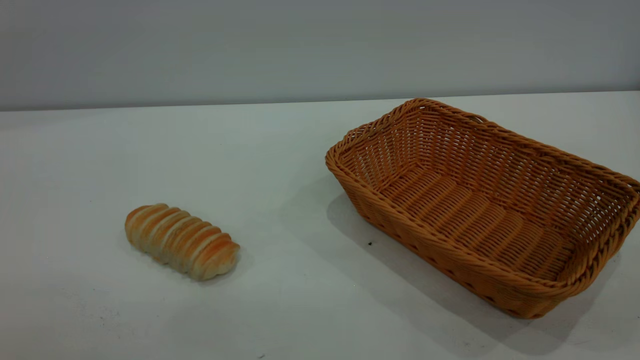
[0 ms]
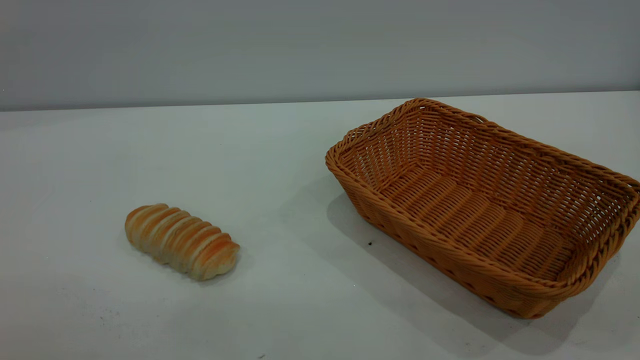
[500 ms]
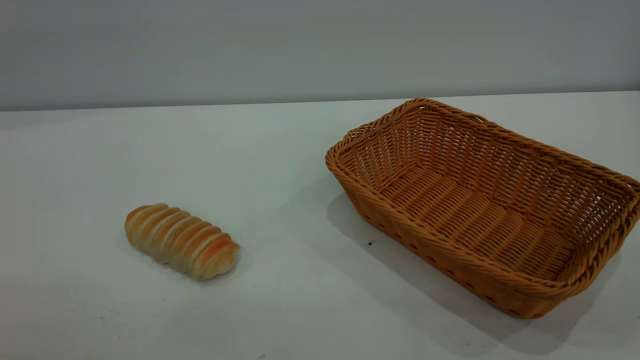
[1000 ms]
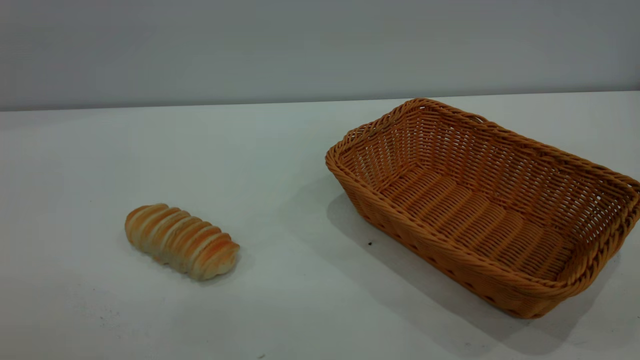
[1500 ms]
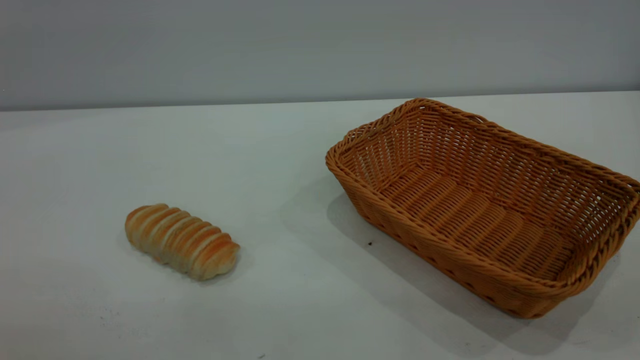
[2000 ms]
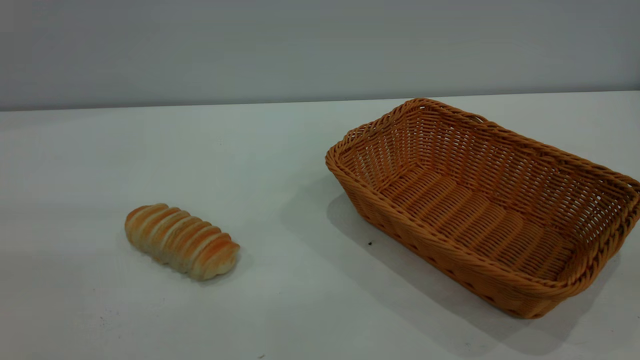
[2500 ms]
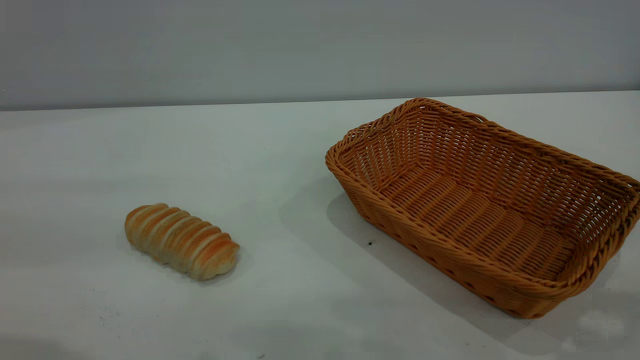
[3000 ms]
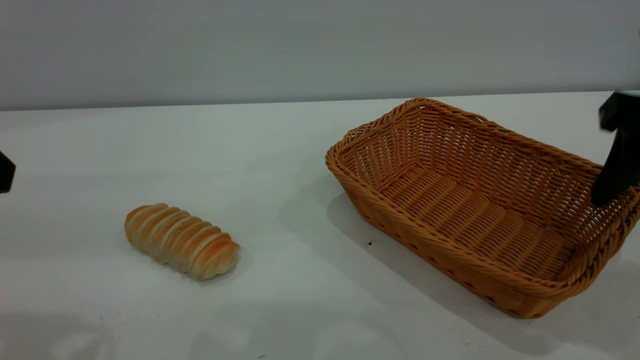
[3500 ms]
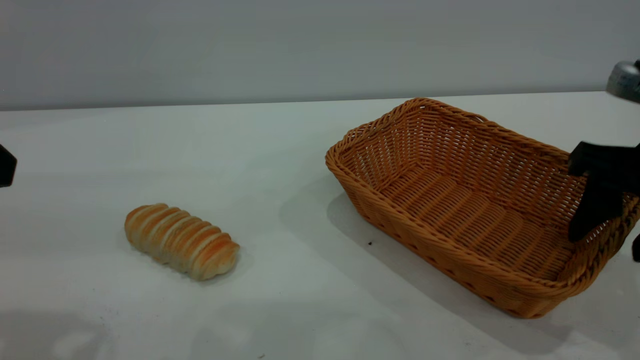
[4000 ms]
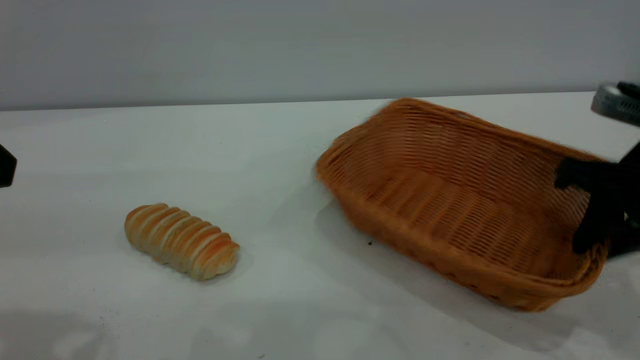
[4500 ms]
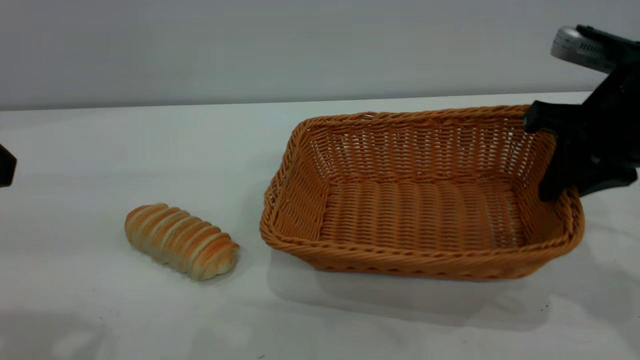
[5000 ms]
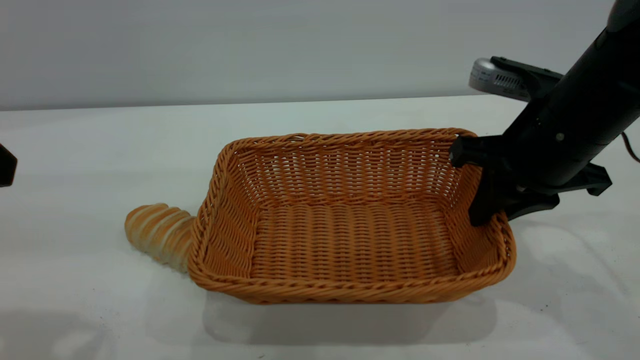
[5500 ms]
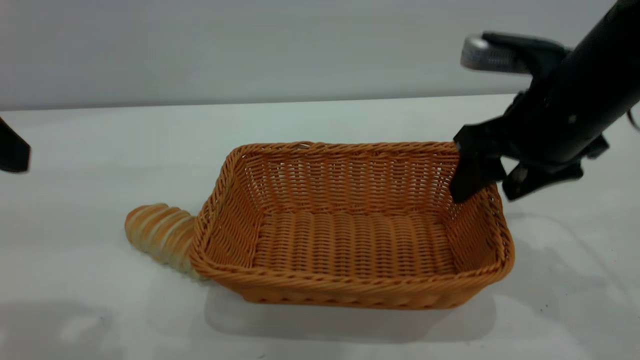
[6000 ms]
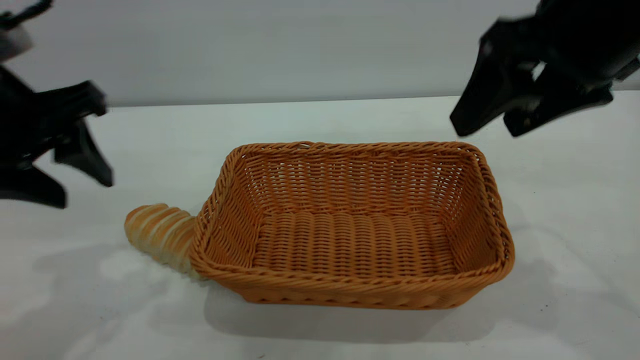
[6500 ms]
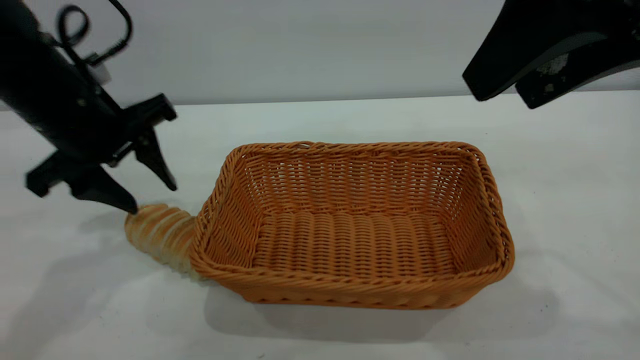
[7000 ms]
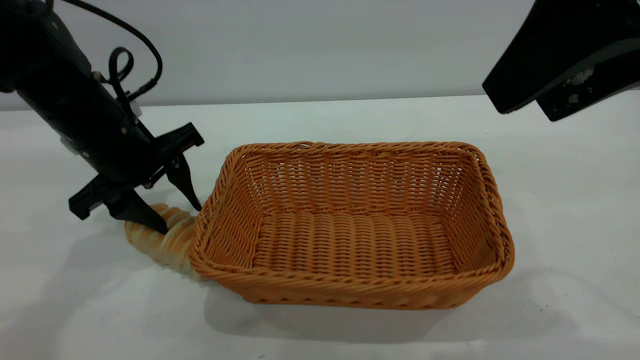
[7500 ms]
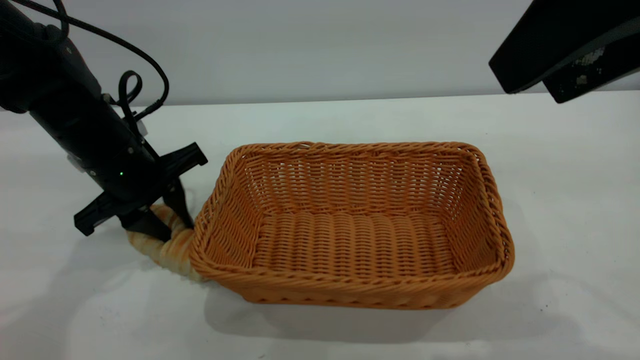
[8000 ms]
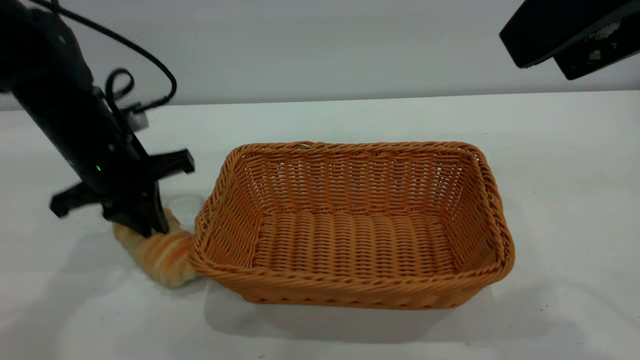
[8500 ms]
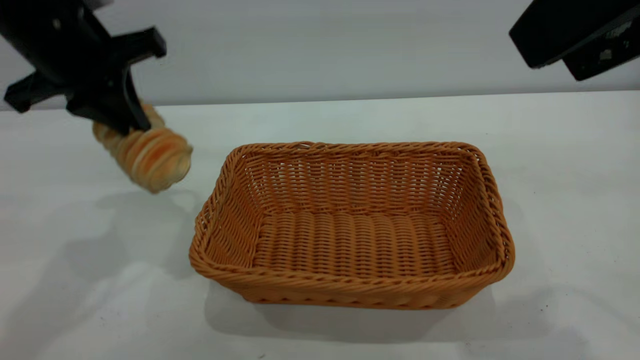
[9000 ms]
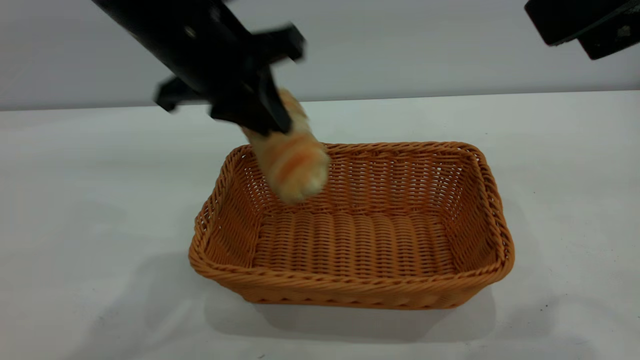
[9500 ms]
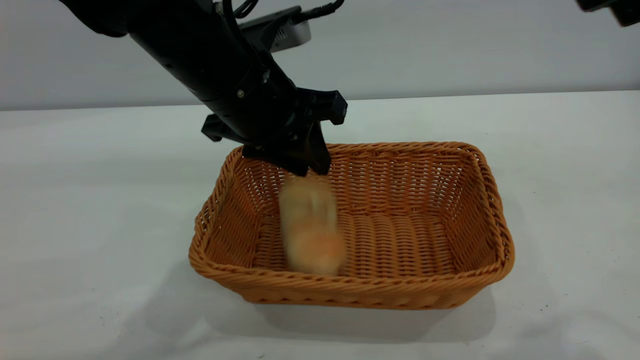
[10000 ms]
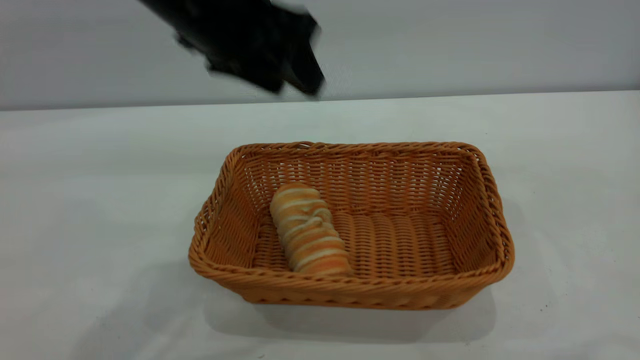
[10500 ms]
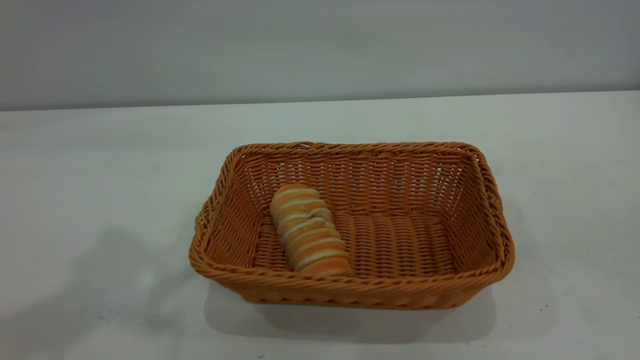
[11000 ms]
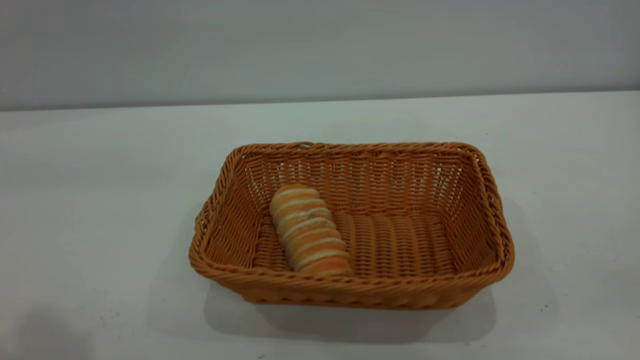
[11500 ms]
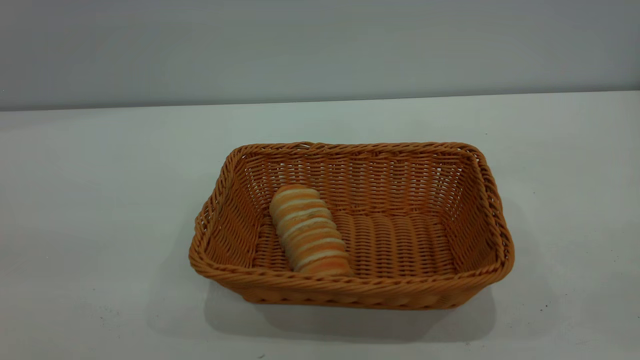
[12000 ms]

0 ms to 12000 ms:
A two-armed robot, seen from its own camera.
Task of the whole recording: One hand grasps the yellow basket and places it in the middle of the table, while the other hand picks up the long bread and puts it into the yellow basket.
Step, 0 ms to 6000 ms: Move the basket to the center of view.
Step, 9000 ms to 10000 ms: place the bread into the basket.
2000 ms to 4000 ms: The right gripper heads forward and downward, covering approximately 30 cm.
4000 ms to 6000 ms: The right gripper moves to the left and forward, approximately 10 cm, and closes, then reopens.
6000 ms to 8000 ms: The left gripper is displaced forward and downward by roughly 25 cm, and closes up. The right gripper heads upward and backward, covering about 20 cm.
8000 ms to 10000 ms: The right gripper moves approximately 5 cm; the left gripper travels to the right and upward by approximately 15 cm, and closes, then reopens.
10000 ms to 12000 ms: The left gripper travels backward, upward and to the left by some 40 cm, and opens its fingers; the right gripper travels backward and to the right by approximately 15 cm.

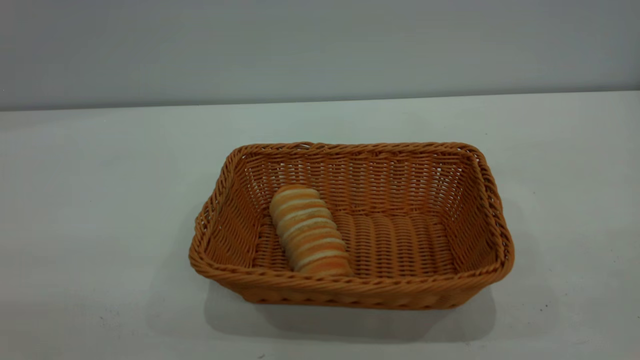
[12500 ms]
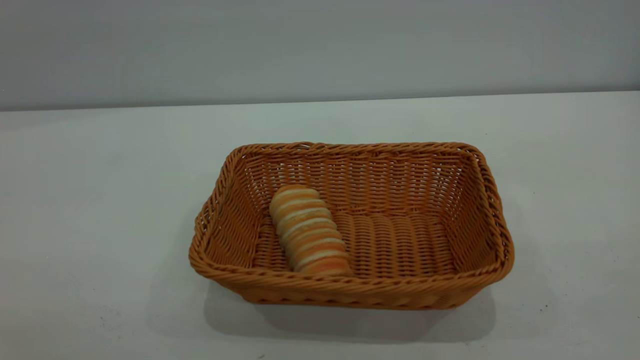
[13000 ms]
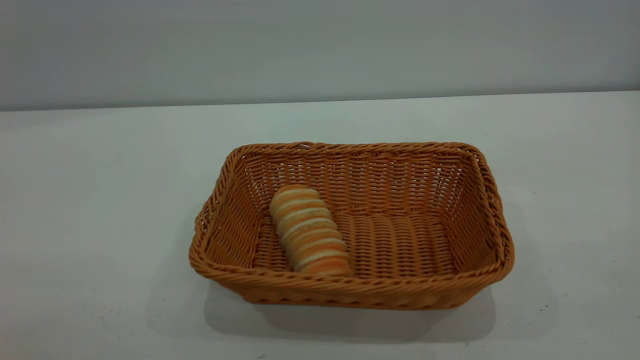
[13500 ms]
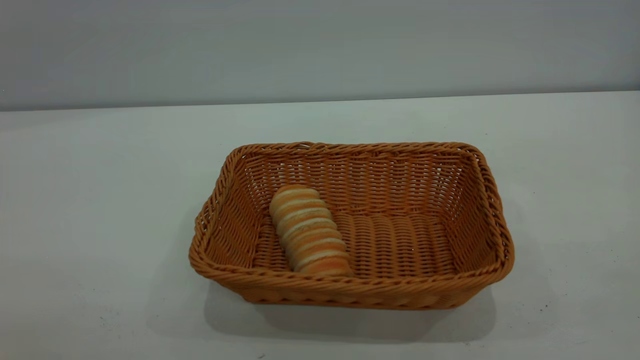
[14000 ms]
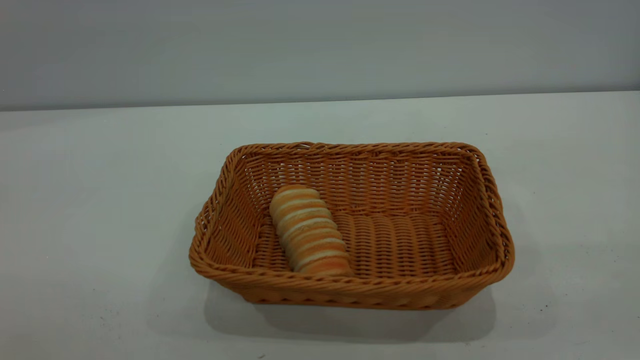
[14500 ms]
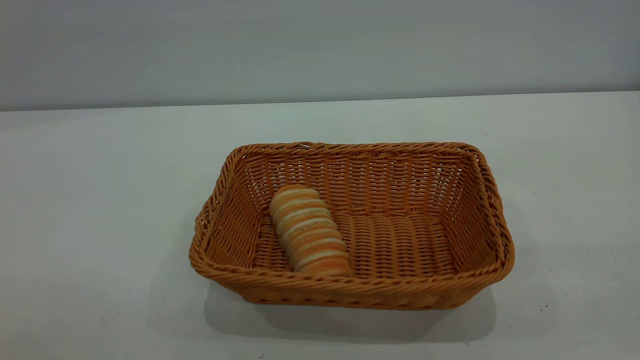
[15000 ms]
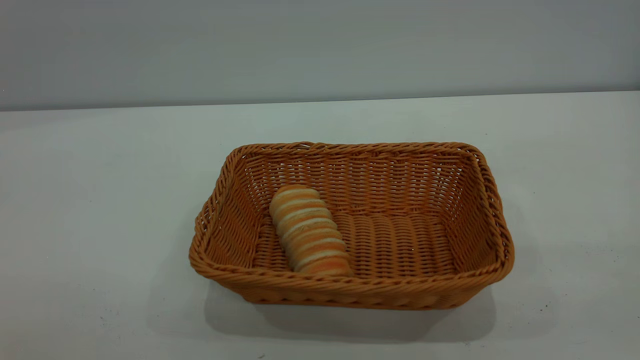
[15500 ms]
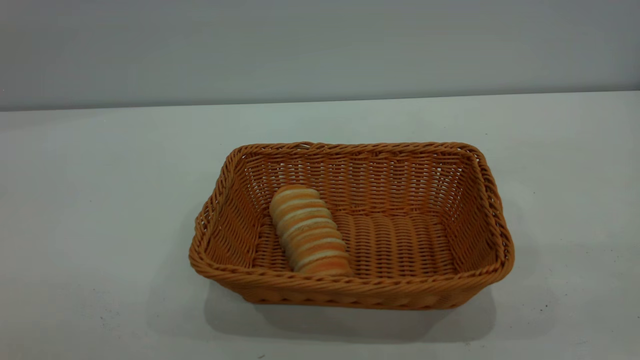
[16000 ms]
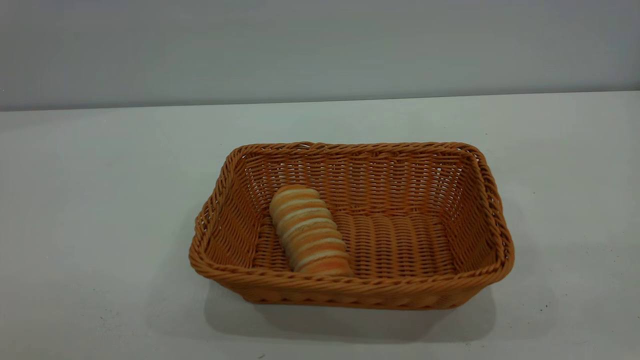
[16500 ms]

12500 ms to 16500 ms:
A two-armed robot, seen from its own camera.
Task of the whole recording: One hand grasps the yellow basket and places it in the middle of the table, while the other hand picks up the long bread and puts it into the yellow basket.
14500 ms to 16500 ms: Both grippers stay put.

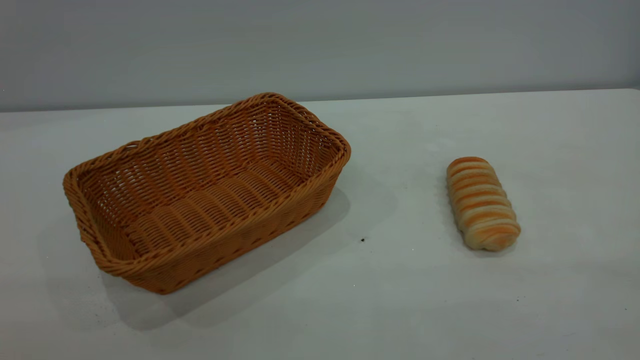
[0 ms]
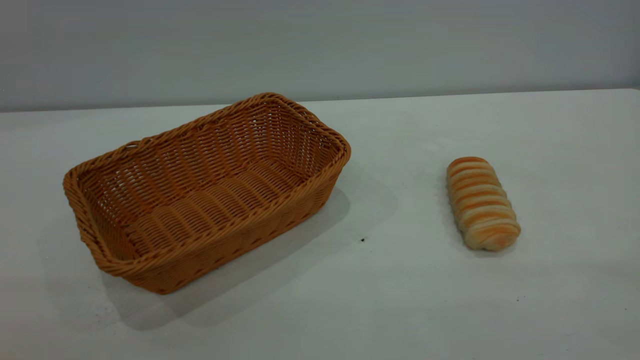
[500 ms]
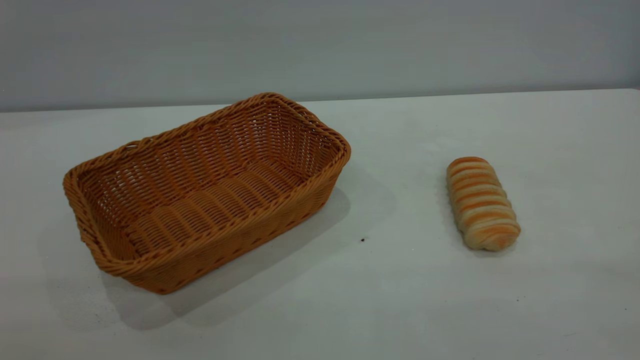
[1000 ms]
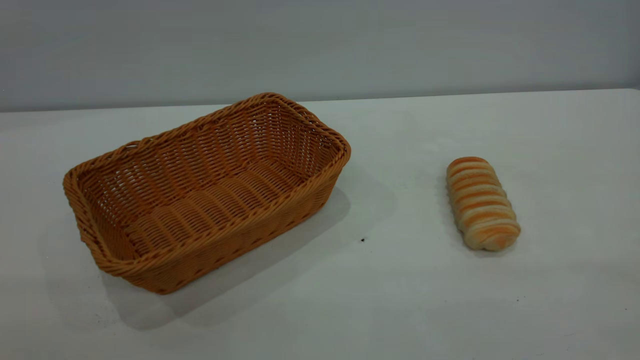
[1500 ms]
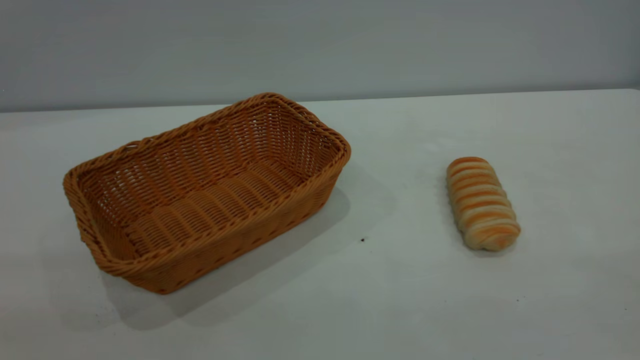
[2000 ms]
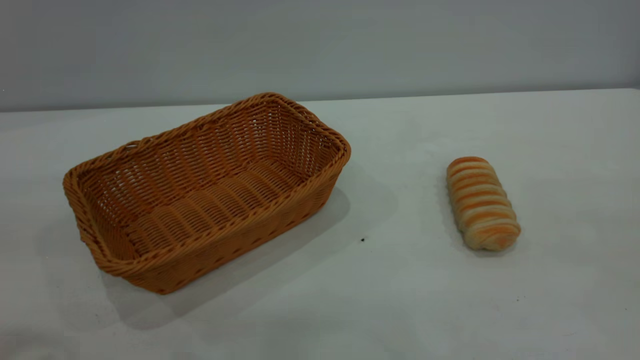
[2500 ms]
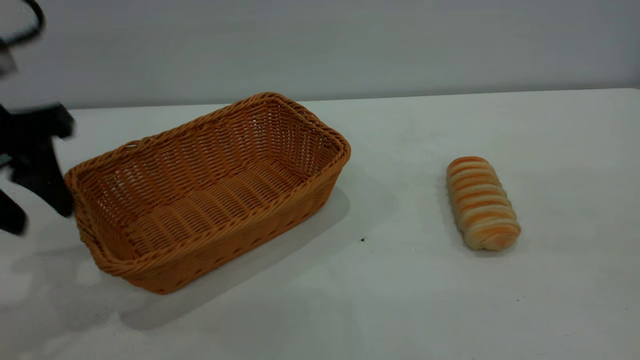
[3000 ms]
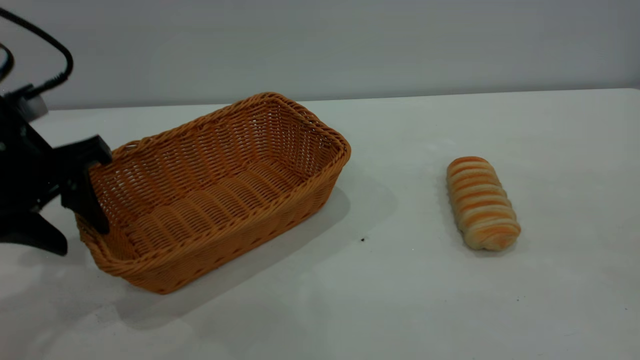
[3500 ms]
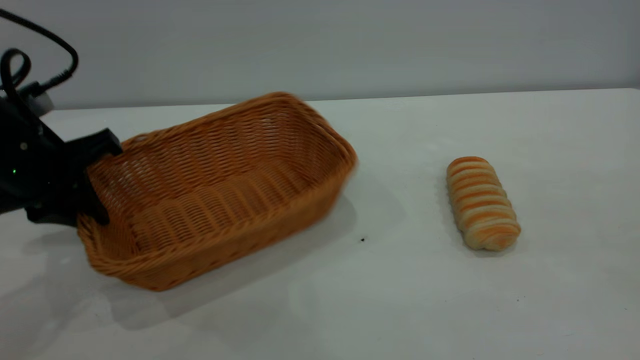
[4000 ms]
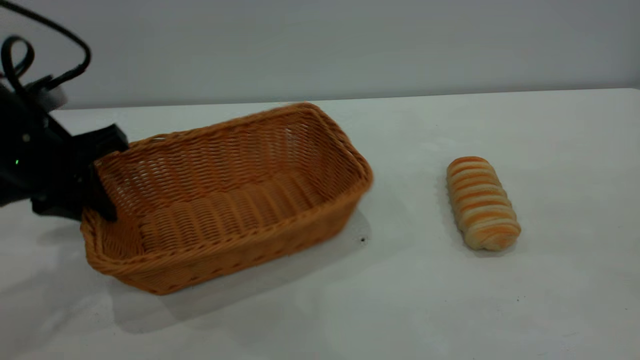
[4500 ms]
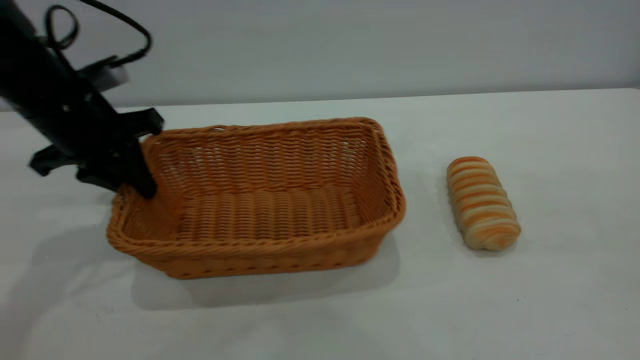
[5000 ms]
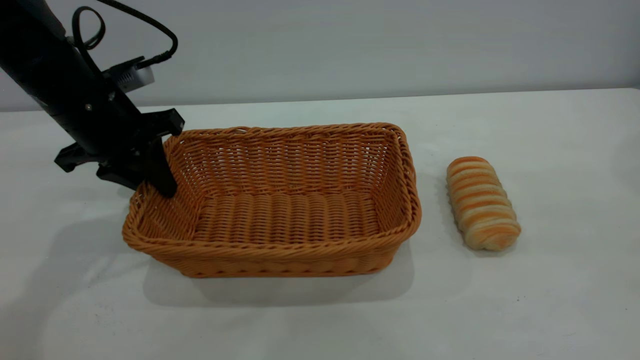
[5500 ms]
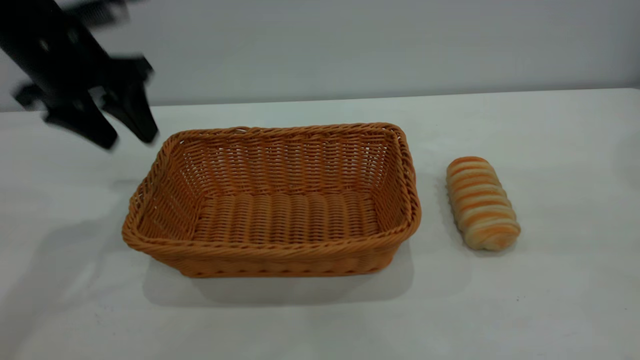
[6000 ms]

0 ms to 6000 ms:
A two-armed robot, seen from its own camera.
Task of the whole recording: One hand grasps the yellow basket and places it in the middle of the table, while the other hand picks up the long bread and puts it into the yellow basket.
Step, 0 ms to 6000 ms: Move the basket to the center of view.
2000 ms to 4000 ms: The left gripper is displaced forward and downward by approximately 35 cm, and closes its fingers. Meanwhile the right gripper travels forward by about 10 cm.
4000 ms to 6000 ms: The left gripper heads upward and forward, covering some 10 cm, and opens its fingers.
